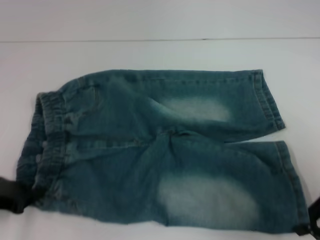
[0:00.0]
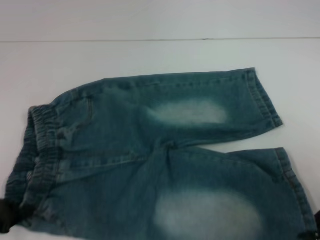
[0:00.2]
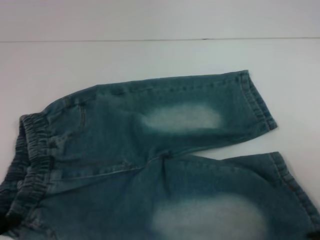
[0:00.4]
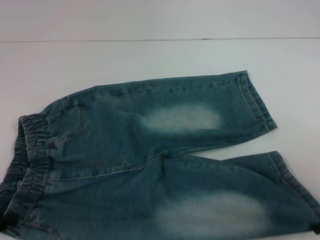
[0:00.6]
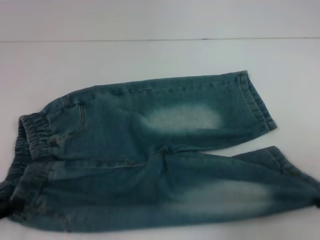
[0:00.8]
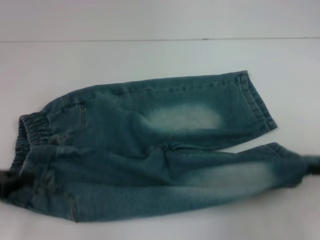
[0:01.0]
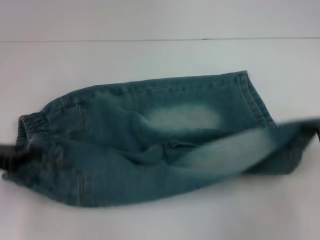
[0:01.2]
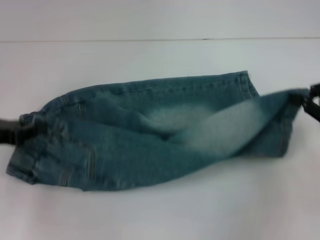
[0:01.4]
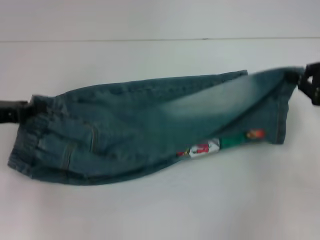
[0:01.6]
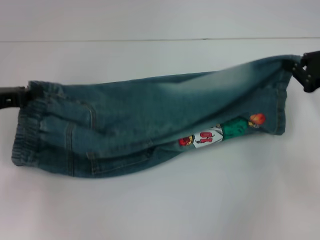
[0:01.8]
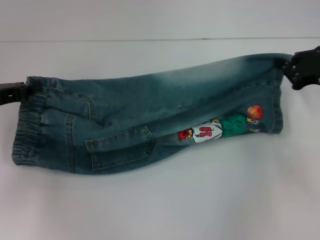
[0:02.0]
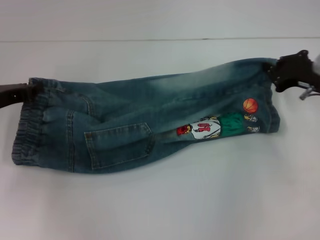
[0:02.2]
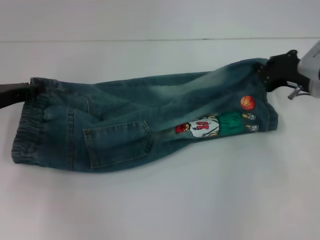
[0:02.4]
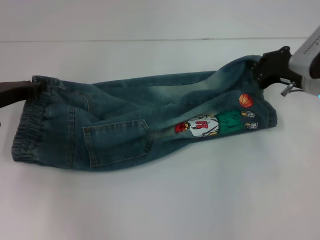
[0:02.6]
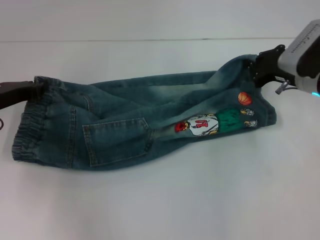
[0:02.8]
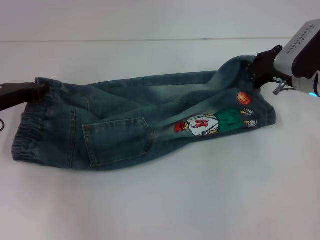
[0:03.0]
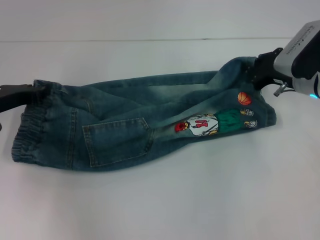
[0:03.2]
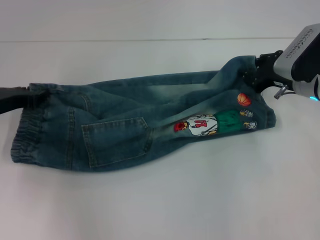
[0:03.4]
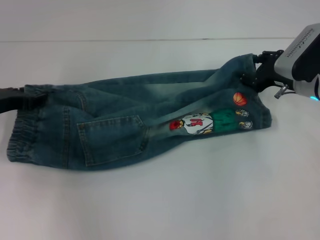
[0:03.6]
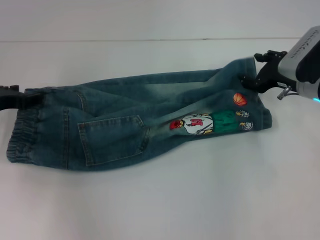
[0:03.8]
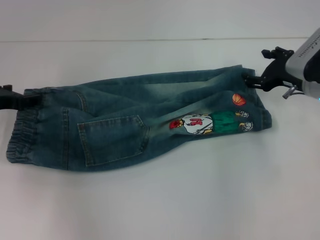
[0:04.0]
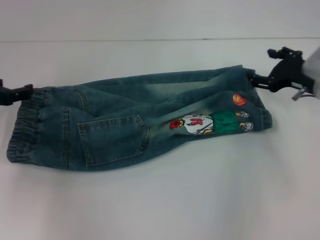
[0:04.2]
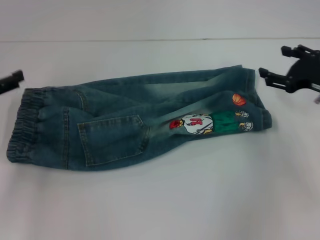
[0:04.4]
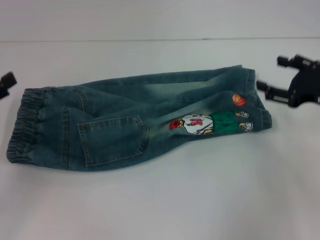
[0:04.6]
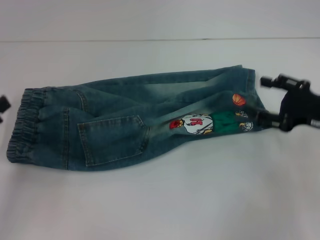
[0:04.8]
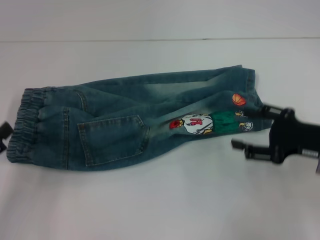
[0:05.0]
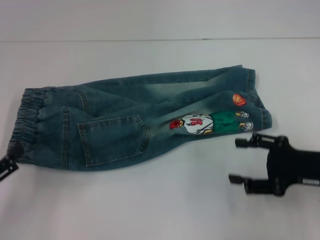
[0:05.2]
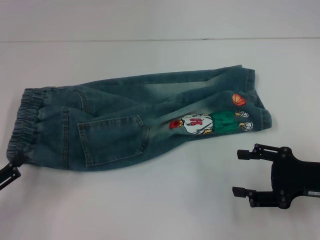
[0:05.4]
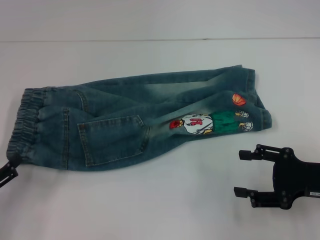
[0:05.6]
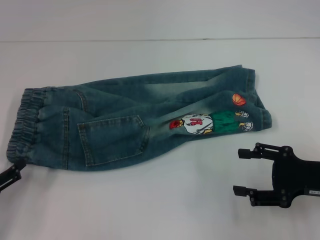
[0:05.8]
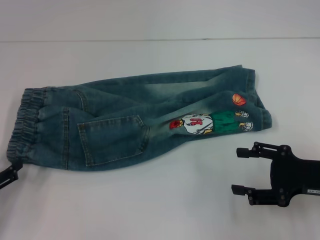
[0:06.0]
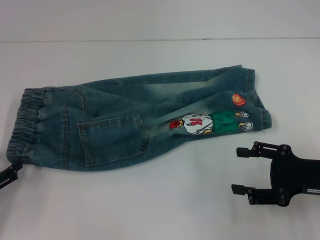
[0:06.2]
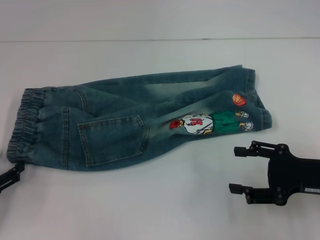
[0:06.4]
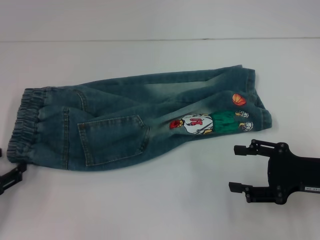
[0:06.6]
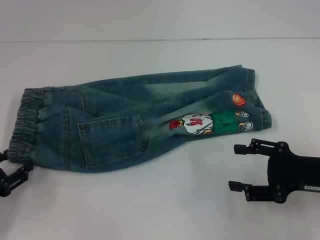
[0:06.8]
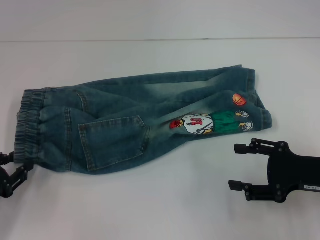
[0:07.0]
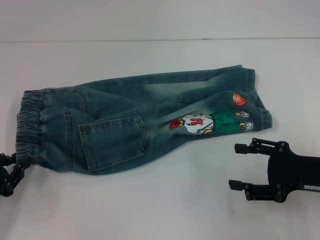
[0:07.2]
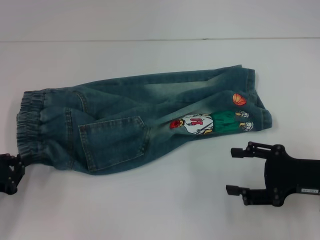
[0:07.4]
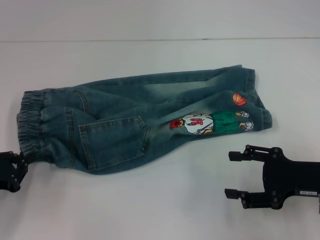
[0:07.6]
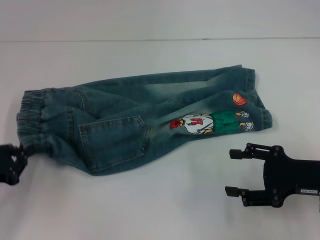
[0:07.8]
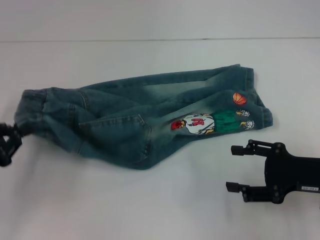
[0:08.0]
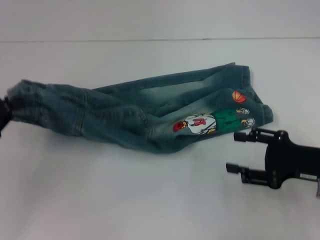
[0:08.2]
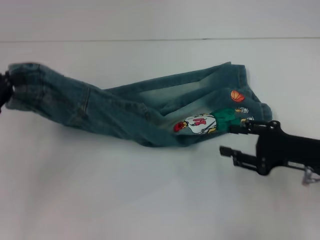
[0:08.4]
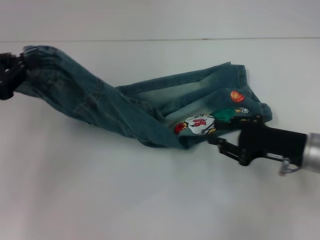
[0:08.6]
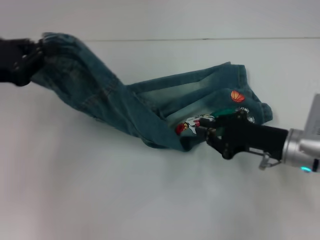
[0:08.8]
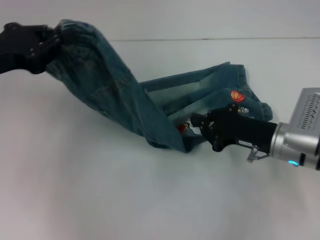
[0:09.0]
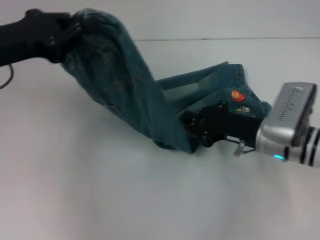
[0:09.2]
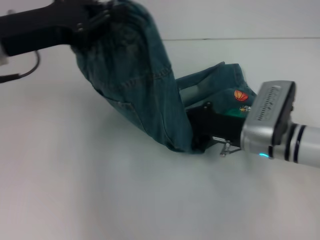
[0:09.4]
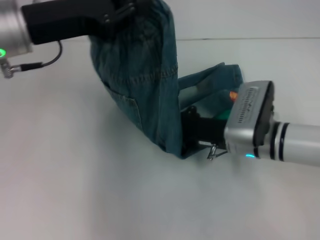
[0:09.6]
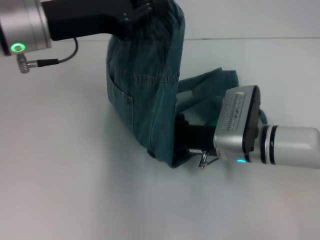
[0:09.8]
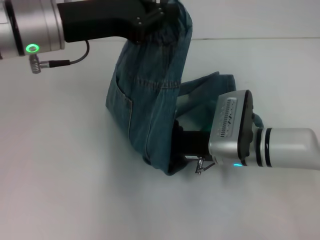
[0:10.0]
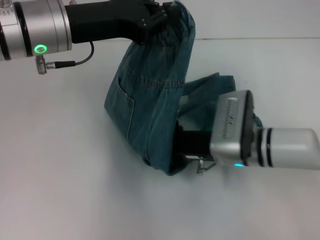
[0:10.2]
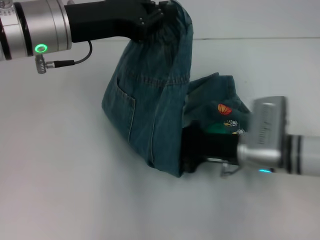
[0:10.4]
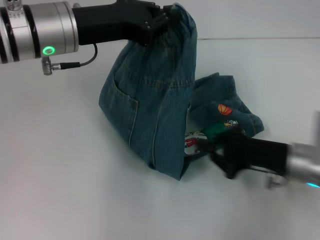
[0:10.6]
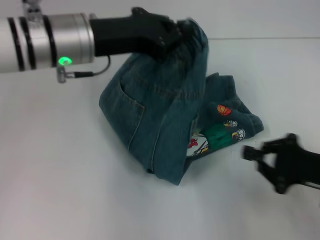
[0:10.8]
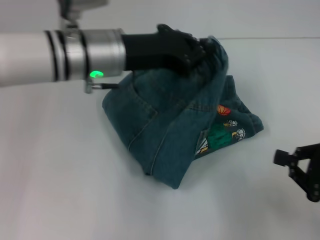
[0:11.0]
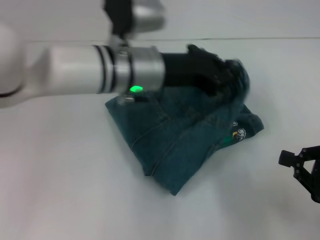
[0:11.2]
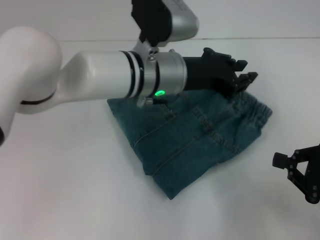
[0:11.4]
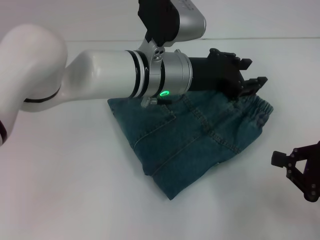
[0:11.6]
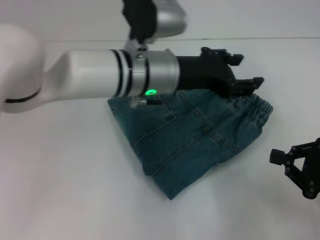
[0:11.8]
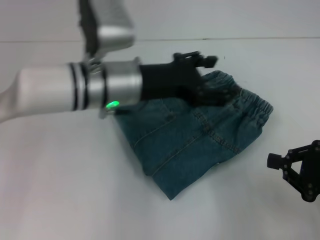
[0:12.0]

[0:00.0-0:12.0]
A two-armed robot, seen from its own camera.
Step, 0:00.4 to 0:03.6: Fold upward with your left hand.
Step, 0:04.0 to 0:07.4: Hold the waistband with your left hand.
Step, 0:07.6 to 0:10.2: Press the middle of the pants with your right hand.
Step, 0:10.6 to 0:11.4: Fold to the right with your left hand.
0:00.0 to 0:01.6: The right gripper heads forward, covering some 10 cm, while the left gripper is displaced upward and forward by roughly 10 cm.
0:01.6 to 0:03.0: The right gripper heads to the left, forward and downward, covering about 15 cm, while the left gripper goes roughly 5 cm forward.
0:03.0 to 0:04.4: The left gripper is displaced backward by about 5 cm, and opens its fingers; the right gripper heads to the right and backward, covering roughly 10 cm, and opens up.
0:04.4 to 0:06.0: The right gripper goes approximately 10 cm backward; the left gripper is displaced backward and downward by about 15 cm.
0:06.0 to 0:07.6: The left gripper closes its fingers.
0:07.6 to 0:09.0: The left gripper shifts approximately 20 cm upward and forward; the right gripper is displaced to the left and forward by roughly 10 cm, and closes.
0:09.0 to 0:10.4: The left gripper shifts roughly 15 cm to the right and forward.
0:10.4 to 0:12.0: The right gripper goes roughly 20 cm to the right and backward. Meanwhile the left gripper is displaced to the right and downward by about 10 cm, and opens up.

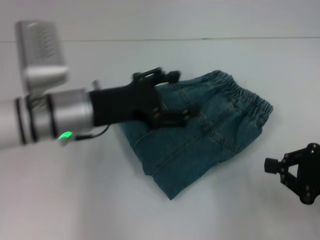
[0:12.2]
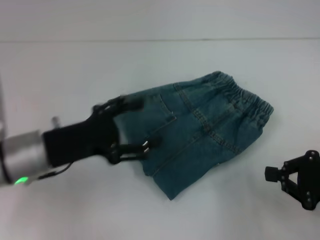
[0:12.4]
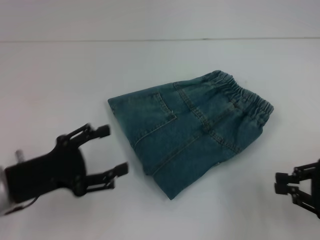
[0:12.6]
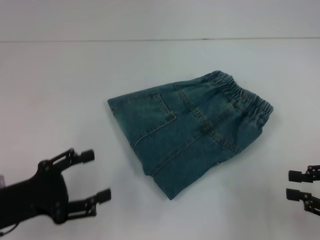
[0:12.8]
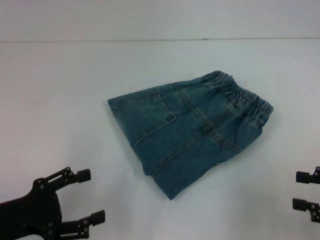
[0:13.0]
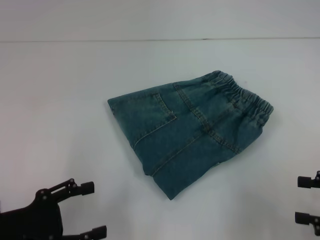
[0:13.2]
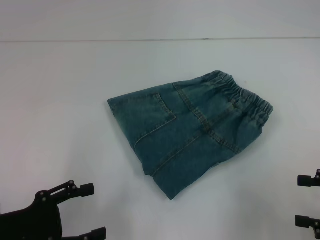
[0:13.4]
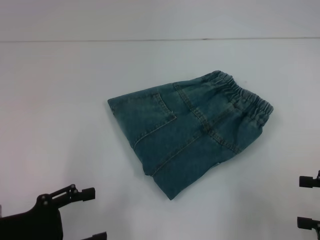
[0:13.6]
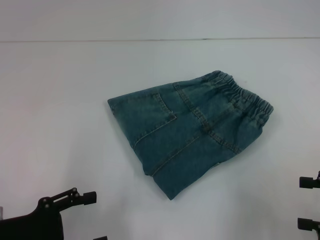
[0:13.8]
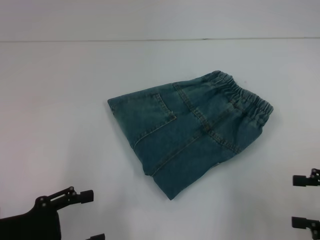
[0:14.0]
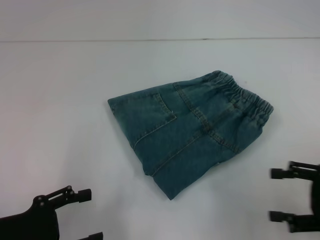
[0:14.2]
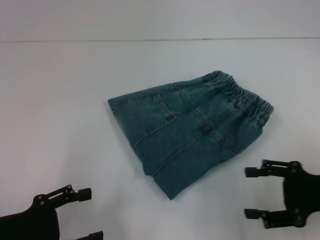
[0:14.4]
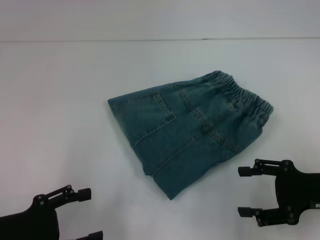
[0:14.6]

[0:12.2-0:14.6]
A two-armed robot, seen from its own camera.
0:12.2 to 0:13.4: The right gripper ends up about 5 cm from where it was, and opens its fingers; the left gripper goes roughly 20 cm backward, to the left and downward.
0:13.4 to 0:14.6: The right gripper moves to the left and forward, roughly 10 cm.

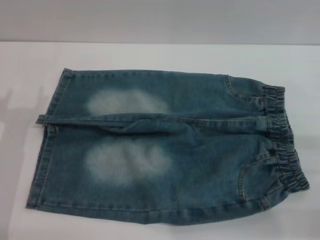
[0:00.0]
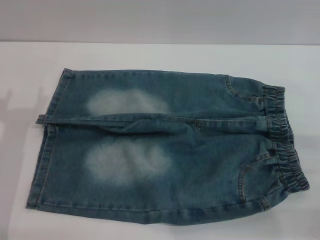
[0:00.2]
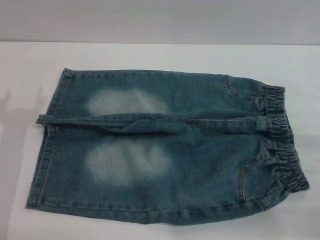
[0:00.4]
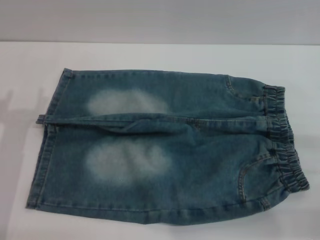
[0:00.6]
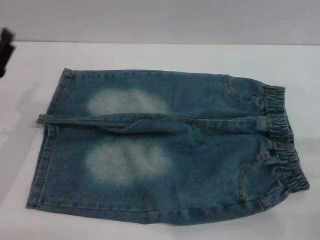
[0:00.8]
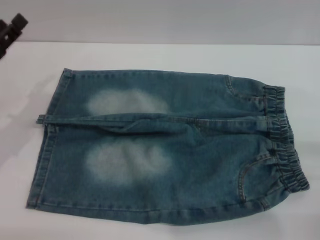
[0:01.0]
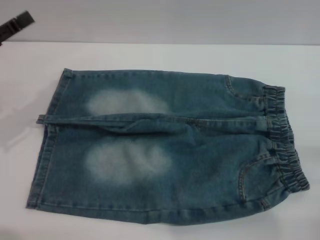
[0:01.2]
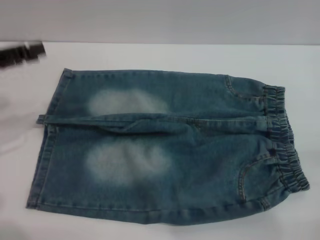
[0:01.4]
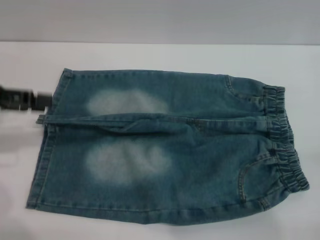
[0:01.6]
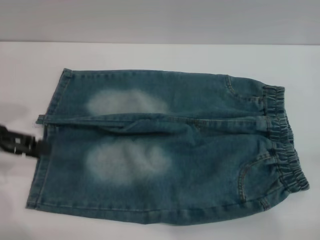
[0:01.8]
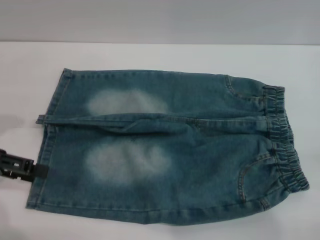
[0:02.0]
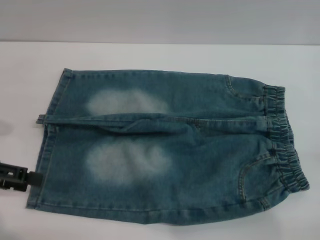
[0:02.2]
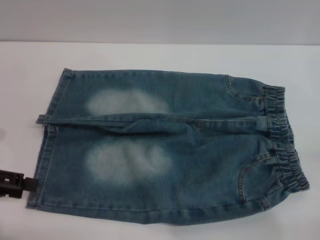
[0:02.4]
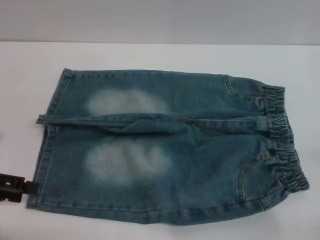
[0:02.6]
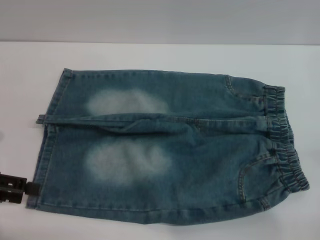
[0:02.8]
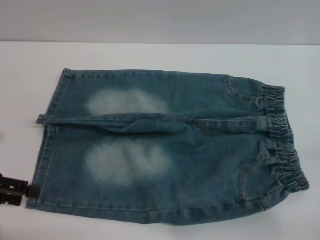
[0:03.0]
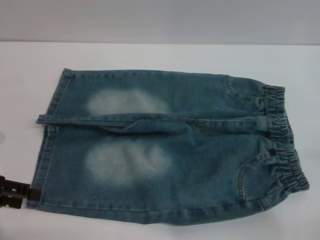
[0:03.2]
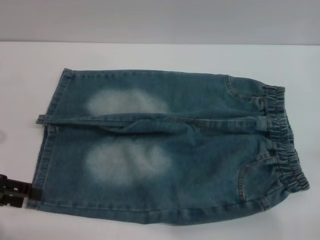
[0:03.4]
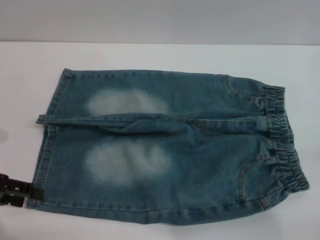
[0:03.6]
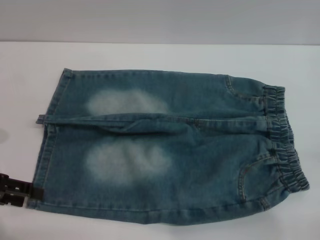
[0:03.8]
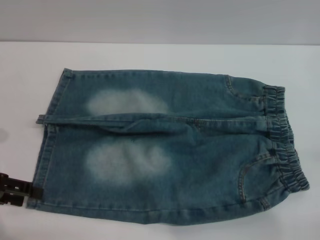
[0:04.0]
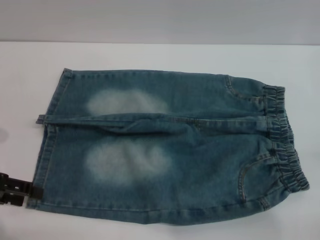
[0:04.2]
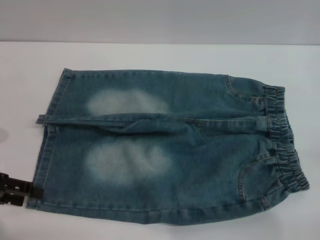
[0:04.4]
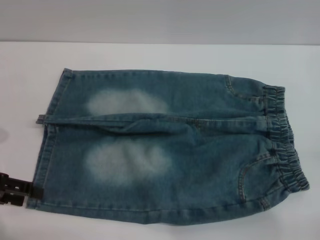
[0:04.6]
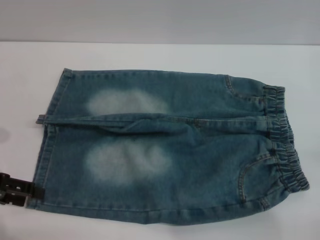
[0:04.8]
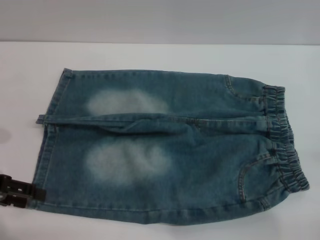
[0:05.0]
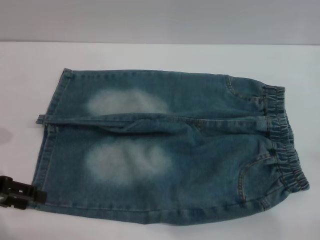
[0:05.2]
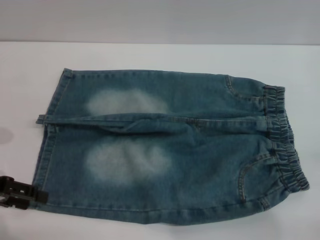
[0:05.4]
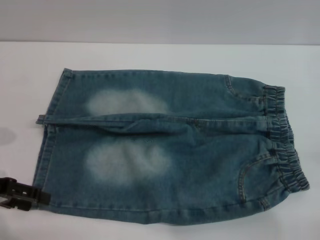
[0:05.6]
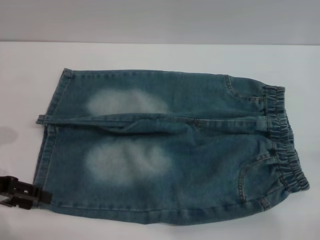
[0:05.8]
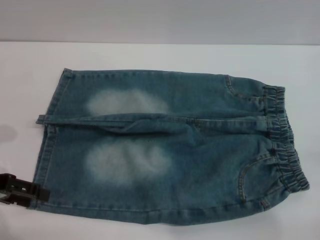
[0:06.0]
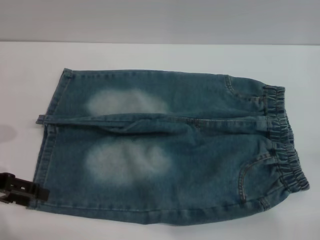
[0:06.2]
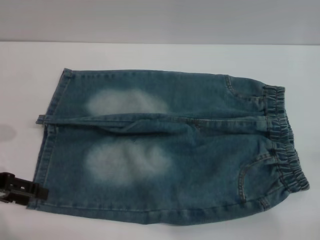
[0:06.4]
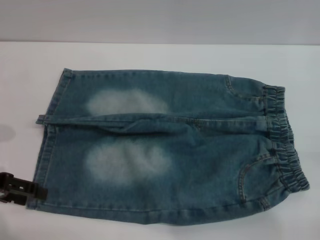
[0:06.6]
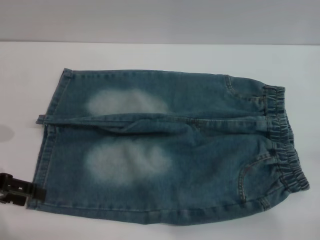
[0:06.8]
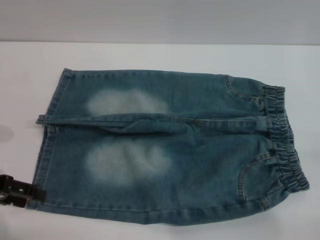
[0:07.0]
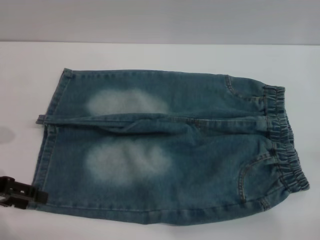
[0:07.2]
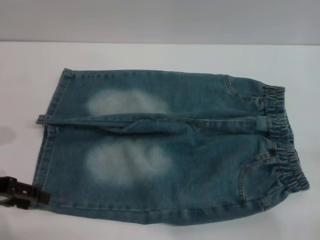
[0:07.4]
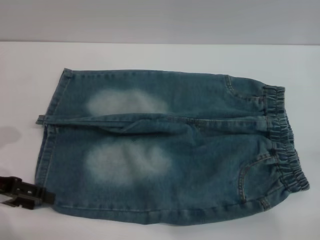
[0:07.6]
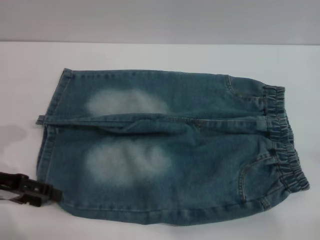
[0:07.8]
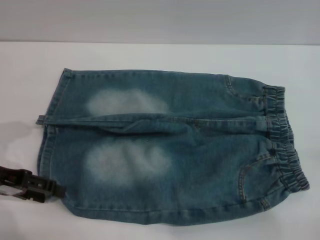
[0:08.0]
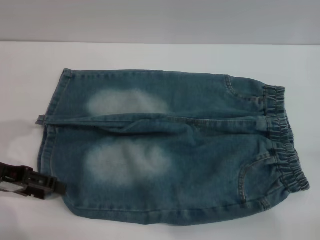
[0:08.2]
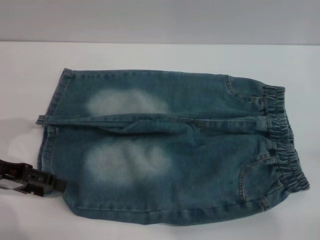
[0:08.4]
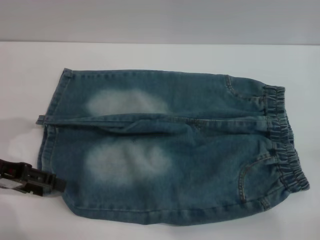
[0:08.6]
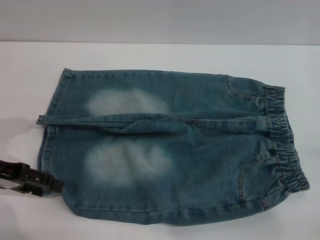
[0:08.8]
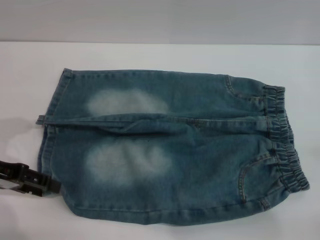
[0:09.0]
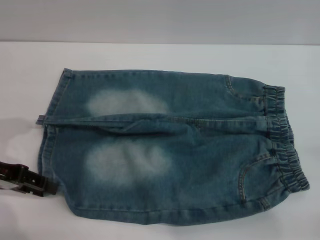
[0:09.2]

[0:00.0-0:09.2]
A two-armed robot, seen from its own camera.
0:00.0 to 0:01.6: The left gripper moves upward, to the left and forward, approximately 15 cm.
0:01.6 to 0:03.0: The left gripper moves downward and backward, some 10 cm.
0:03.0 to 0:04.6: The two grippers keep their place.
0:04.6 to 0:06.2: Neither gripper changes place.
0:06.2 to 0:07.6: Both grippers stay put.
0:07.6 to 0:09.2: There are only small adjustments of the grippers.
